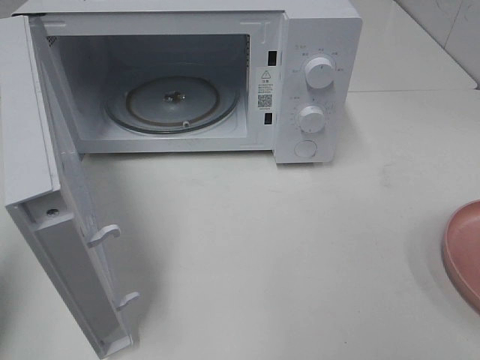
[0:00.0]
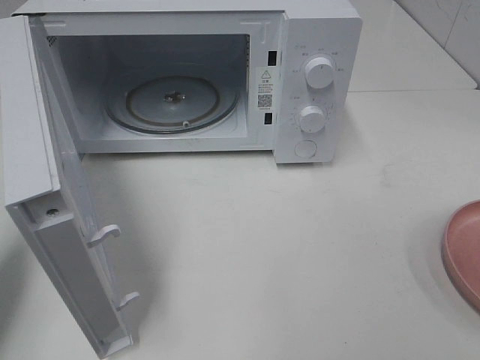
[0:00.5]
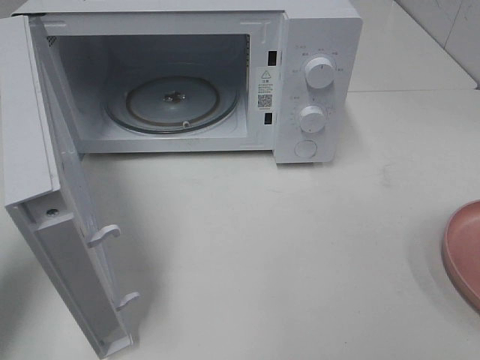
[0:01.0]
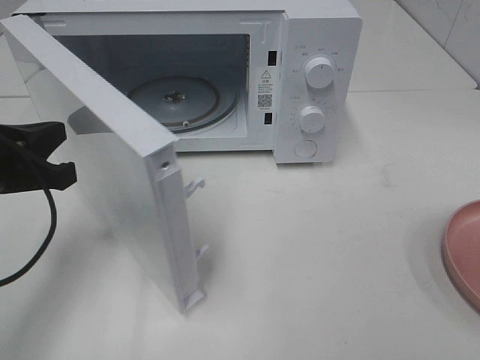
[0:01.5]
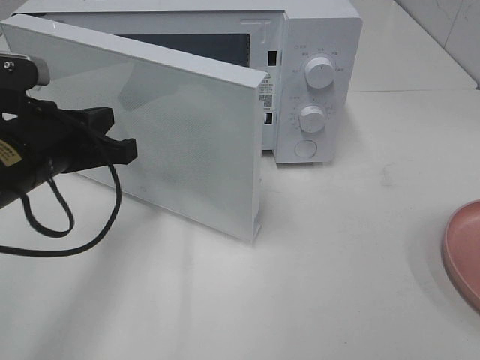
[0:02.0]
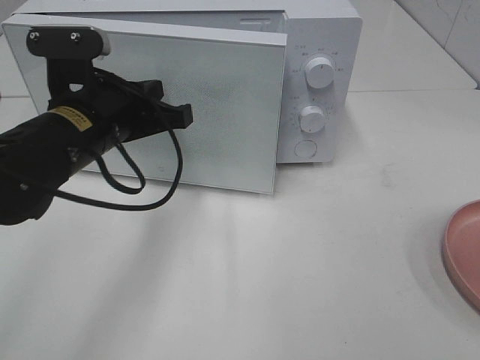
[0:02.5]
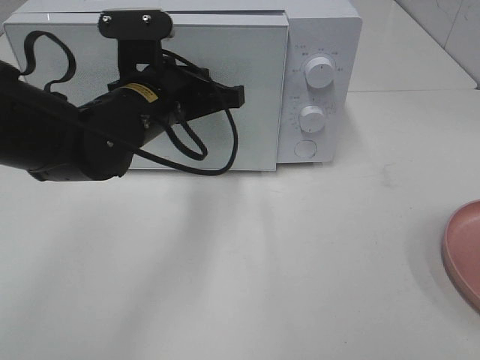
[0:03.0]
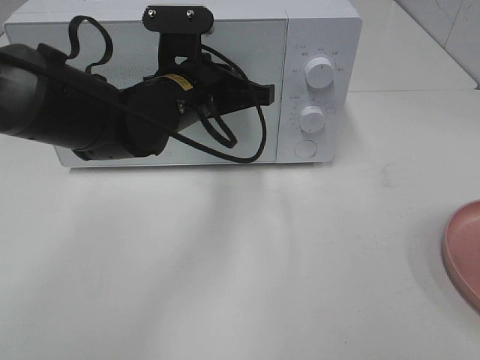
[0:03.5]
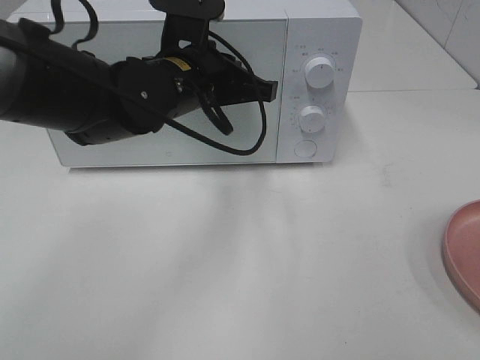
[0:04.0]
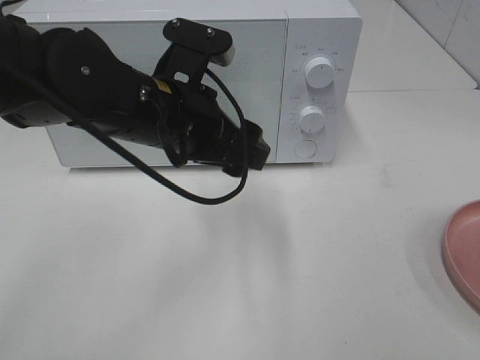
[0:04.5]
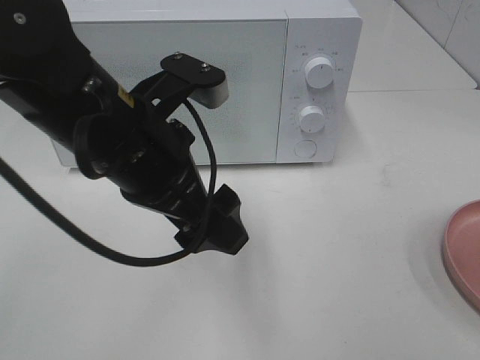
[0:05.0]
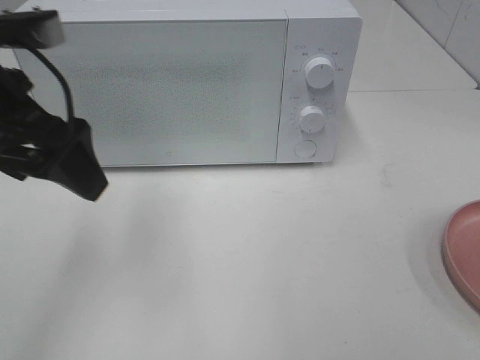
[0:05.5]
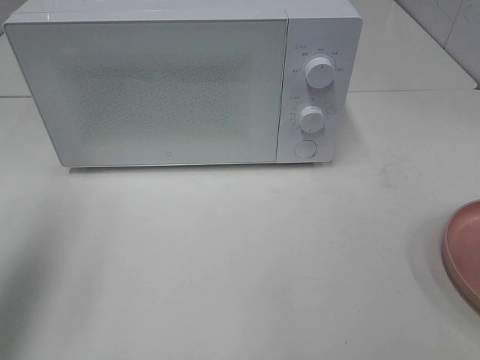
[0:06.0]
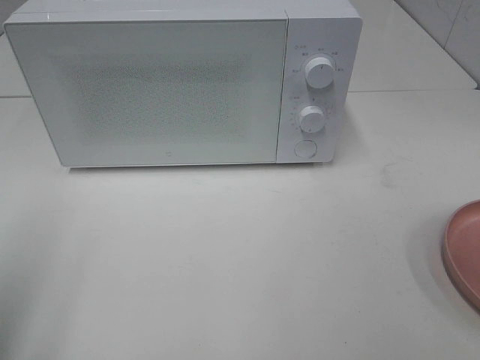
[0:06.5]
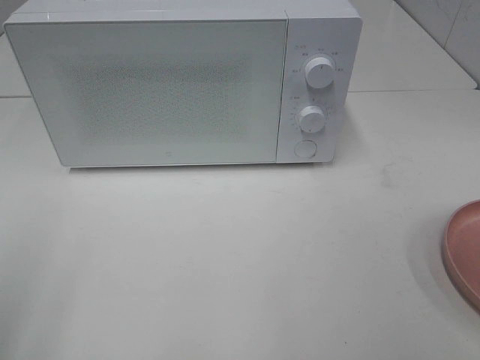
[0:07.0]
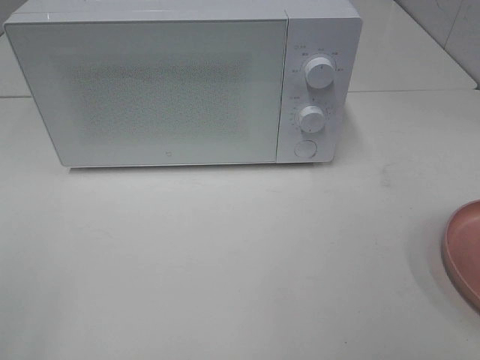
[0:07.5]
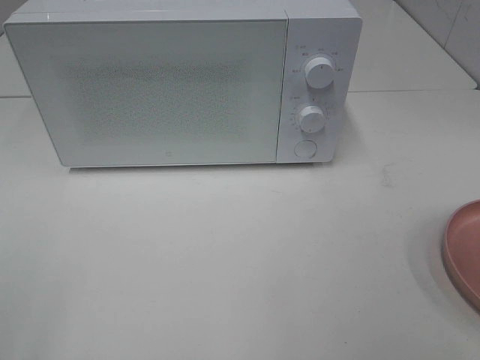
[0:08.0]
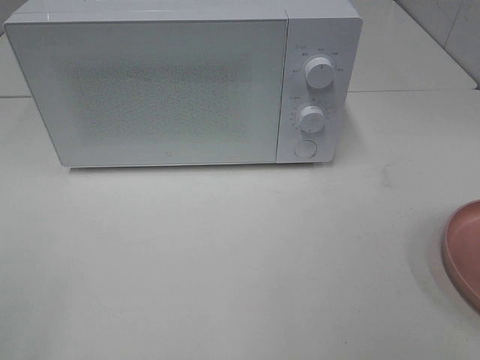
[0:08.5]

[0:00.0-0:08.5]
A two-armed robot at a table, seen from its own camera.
Task of the whole recording: Heat the burger.
Step, 0:00.0 to 0:04.0: Left hand: close the microwave door.
0:00.0 to 0:02.0: The left gripper shifts roughly 20 cm to the right, forward and downward.
0:02.0 to 0:04.0: The left gripper is displaced to the right and forward by about 15 cm.
0:04.0 to 0:06.5: The left gripper is displaced to the left and backward by some 35 cm, and opens up.

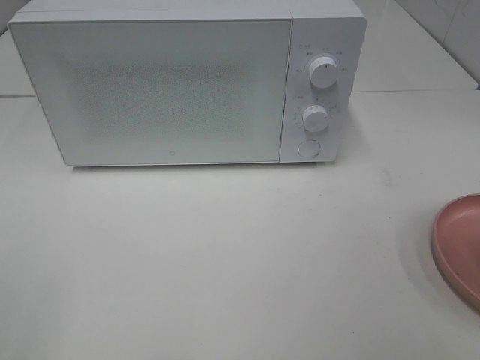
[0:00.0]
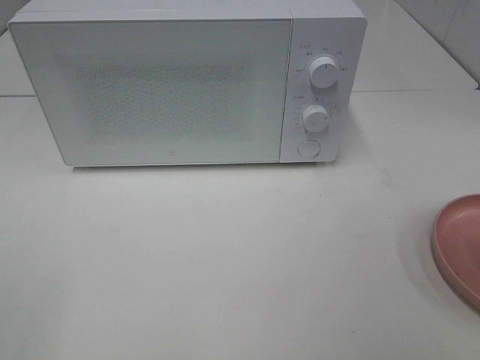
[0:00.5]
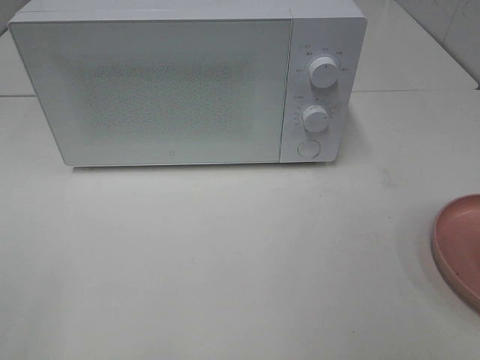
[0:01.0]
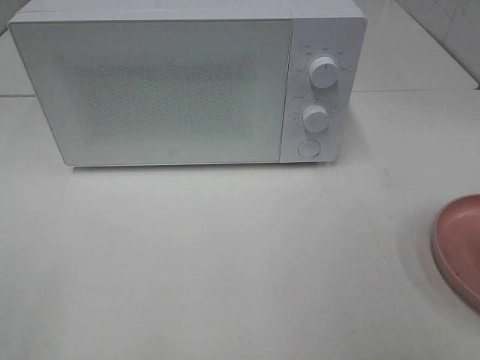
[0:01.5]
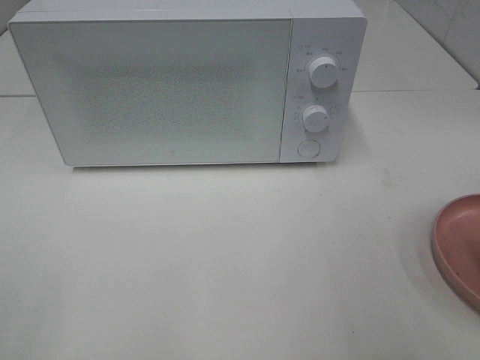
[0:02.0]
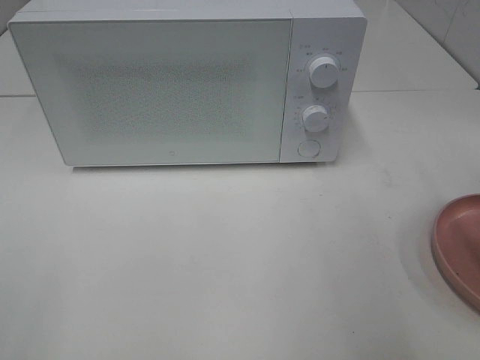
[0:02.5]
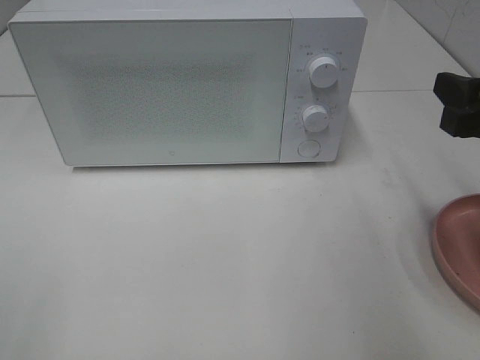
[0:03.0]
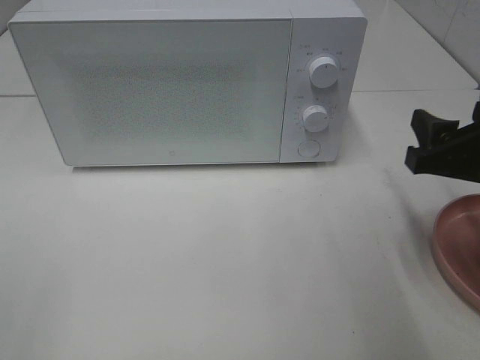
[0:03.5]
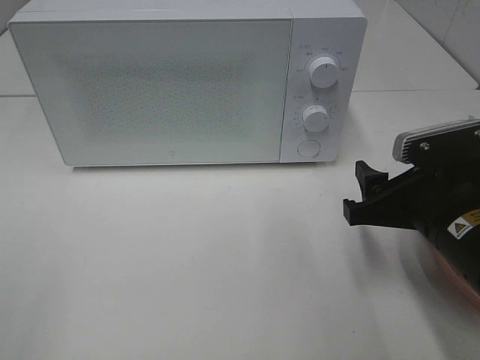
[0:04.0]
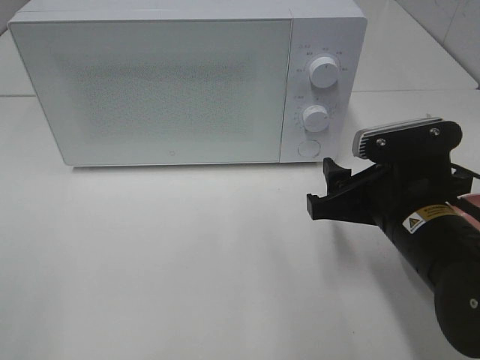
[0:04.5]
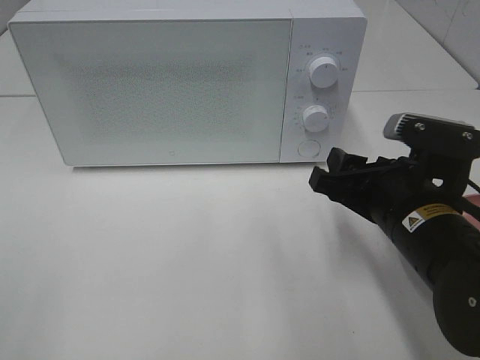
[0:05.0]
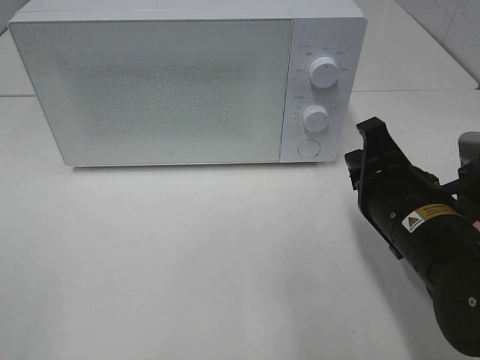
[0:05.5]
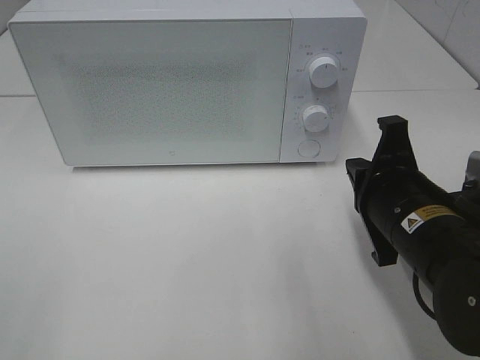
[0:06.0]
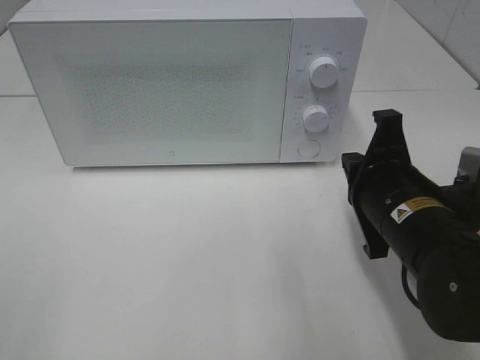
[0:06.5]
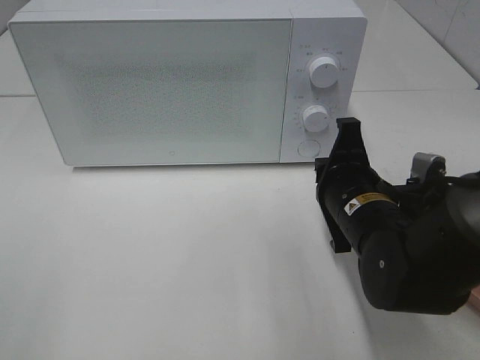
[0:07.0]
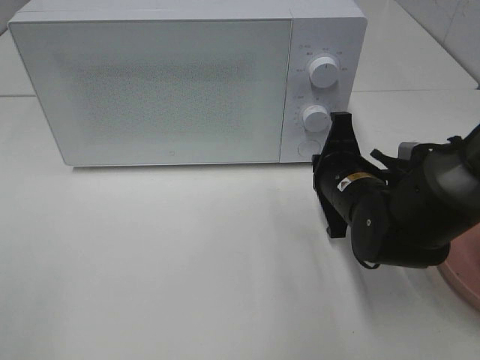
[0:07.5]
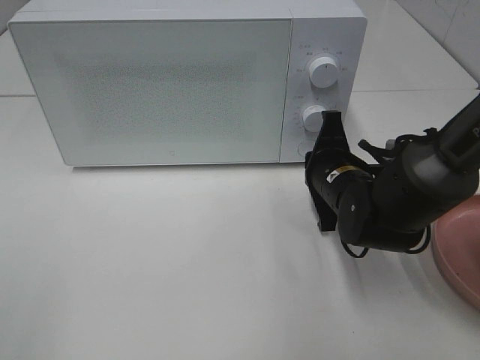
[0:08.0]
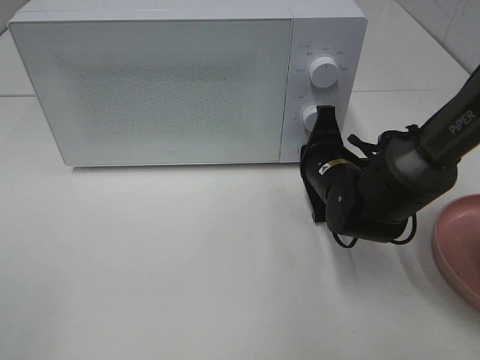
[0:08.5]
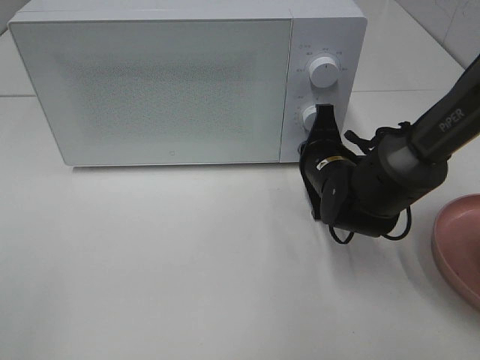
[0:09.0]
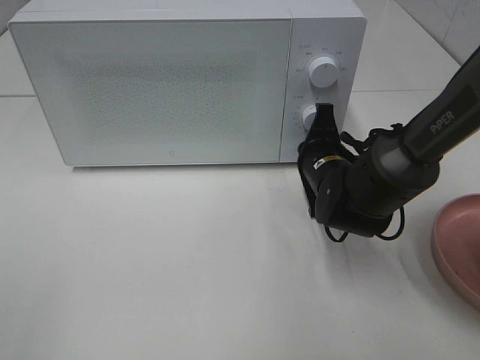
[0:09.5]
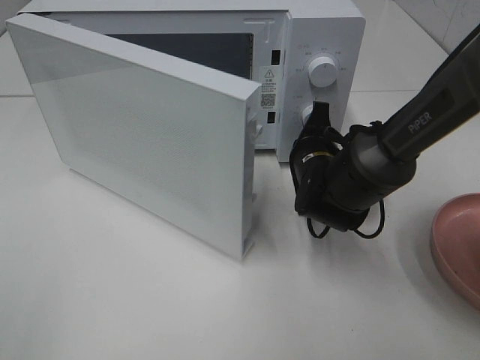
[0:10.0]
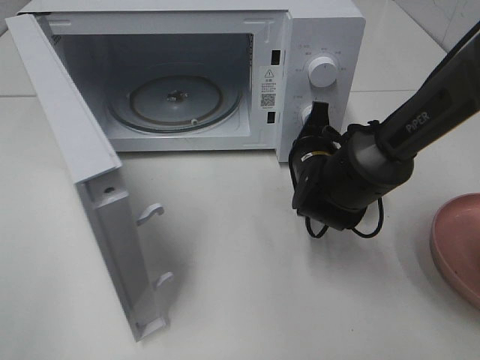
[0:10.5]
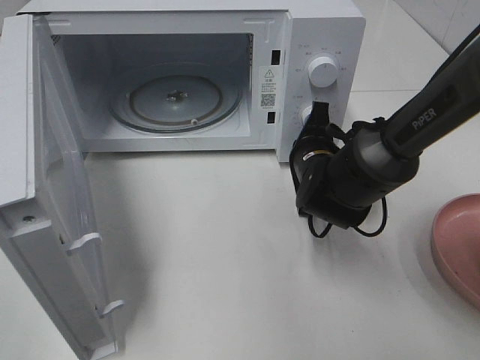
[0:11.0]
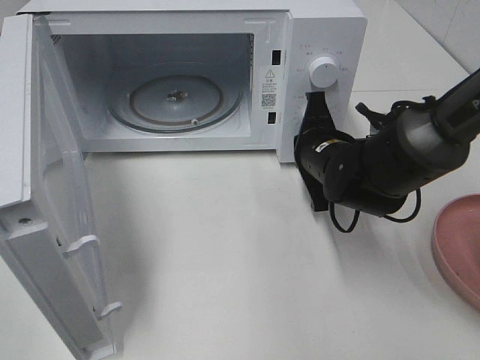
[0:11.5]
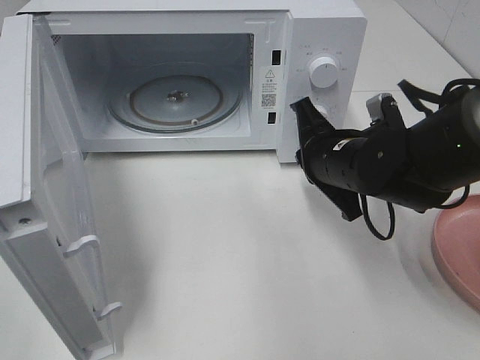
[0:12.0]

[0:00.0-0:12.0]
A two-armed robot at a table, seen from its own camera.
Task of the whole recording: Heat the burger.
Step, 0:00.0 to 0:11.5: Right hand: press the switch.
0:02.0 to 0:04.0: The right gripper heads downward, forward and to the left, covering roughly 20 cm.
0:04.0 to 0:06.0: The right gripper closes.
0:06.0 to 0:08.0: The right gripper travels forward and downward by approximately 10 cm.
0:10.0 to 0:12.0: The right gripper goes about 10 cm upward and backward.

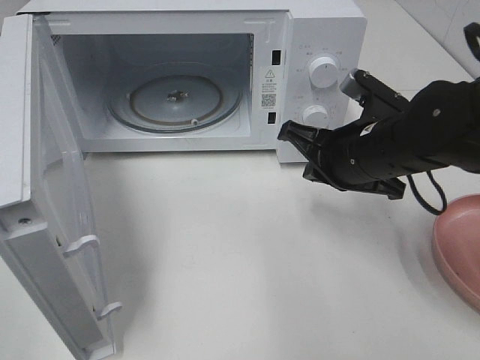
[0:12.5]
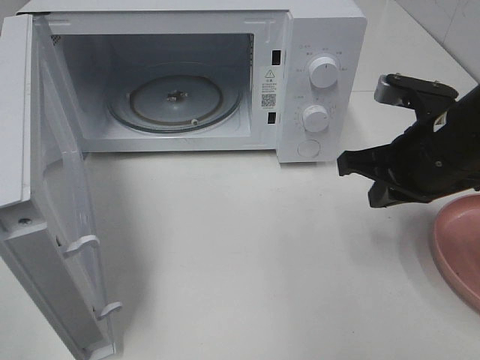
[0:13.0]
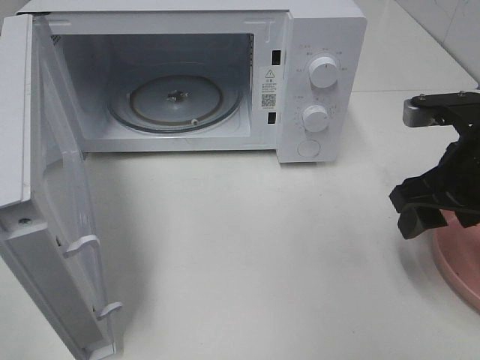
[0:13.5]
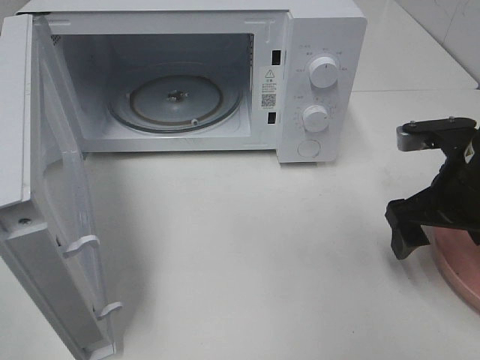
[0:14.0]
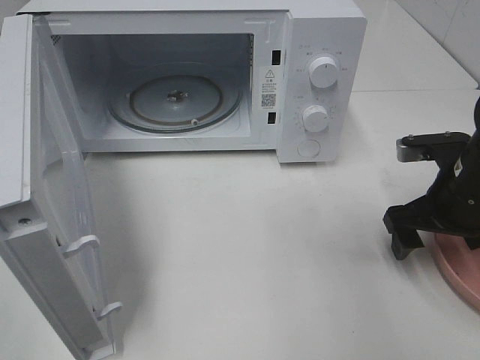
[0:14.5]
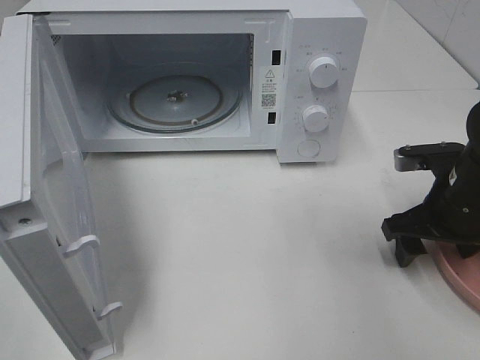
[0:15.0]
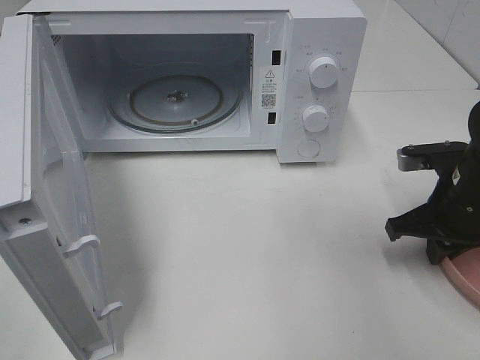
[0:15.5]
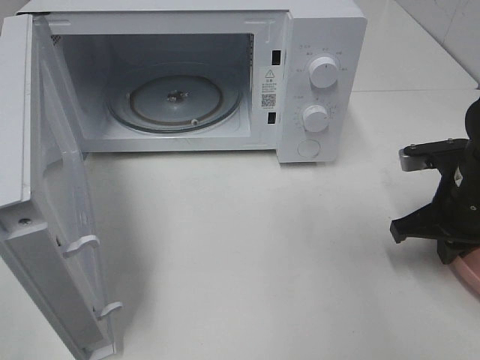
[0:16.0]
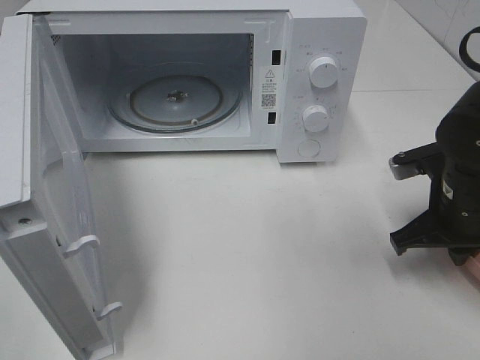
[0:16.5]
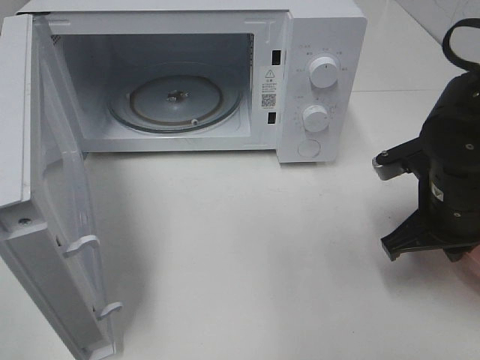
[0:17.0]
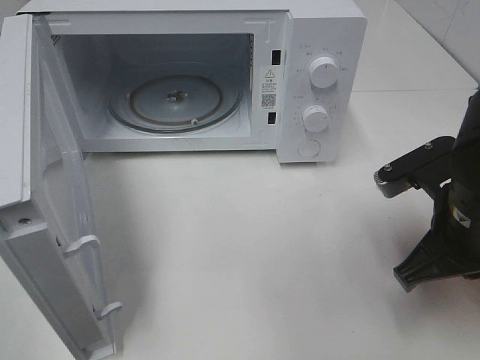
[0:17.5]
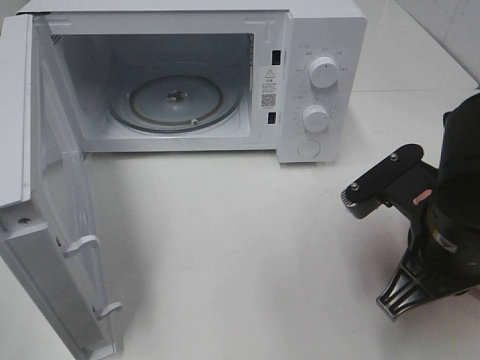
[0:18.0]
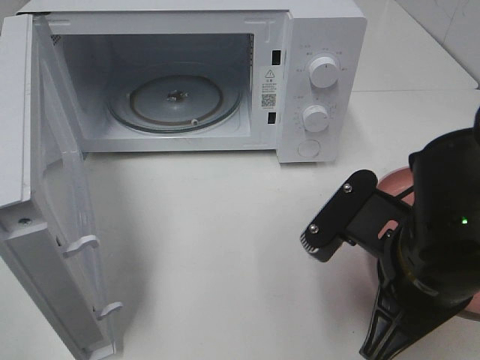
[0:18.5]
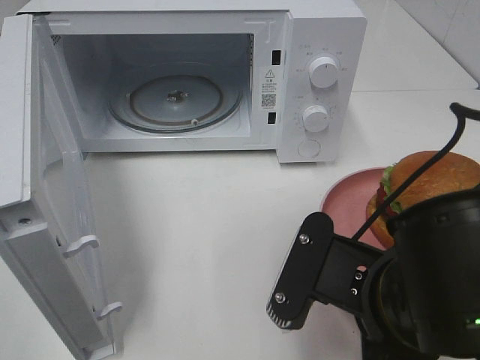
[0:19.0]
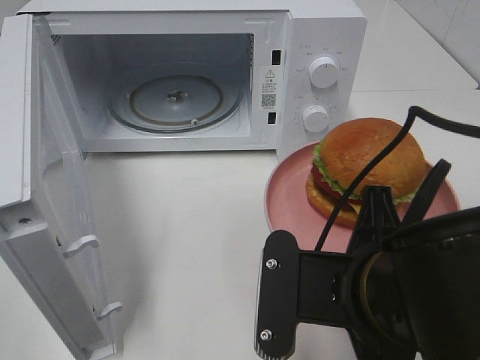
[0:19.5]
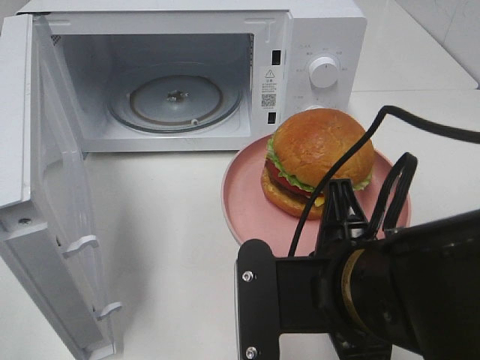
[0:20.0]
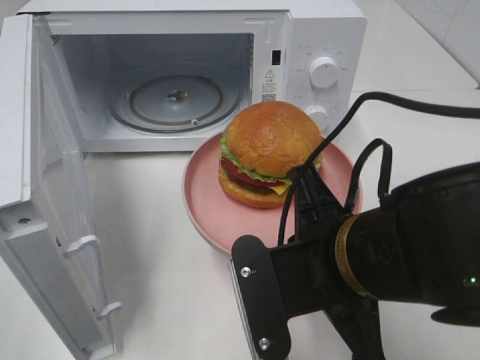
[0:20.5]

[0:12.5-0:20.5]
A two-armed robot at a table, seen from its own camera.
Task of the whole recording: Heat the burger.
Step, 0:12.5 to 0:15.5: Right hand: grab the plate with the hamburger.
0:12.5 to 0:14.5: The right gripper heads to the right, covering about 10 cm, and opens up.
0:14.5 to 0:16.5: The right gripper closes.
0:16.5 to 0:18.5: The right gripper heads backward and to the left, covering approximately 15 cm.
0:18.5 to 0:20.5: The right gripper is displaced to the left by about 5 cm.
